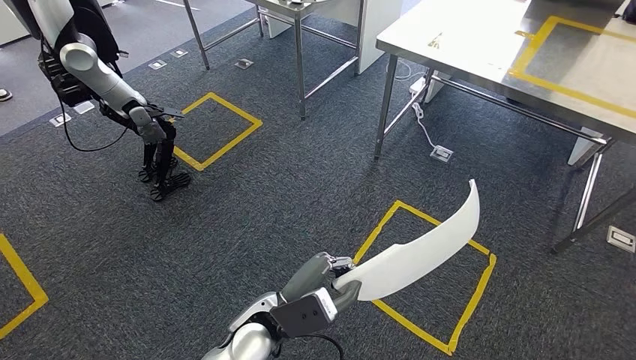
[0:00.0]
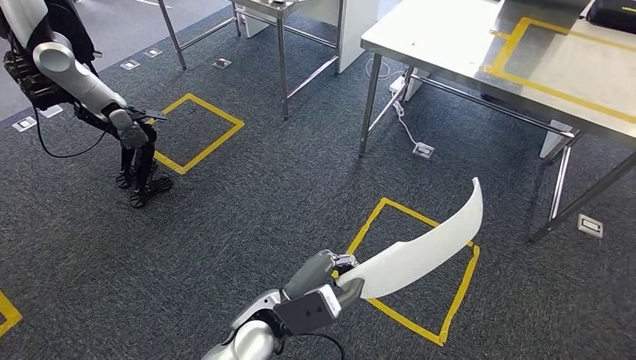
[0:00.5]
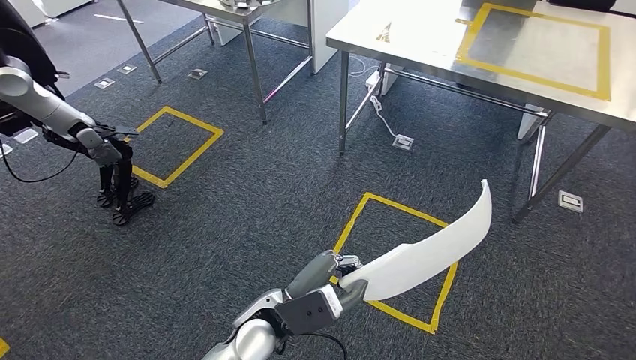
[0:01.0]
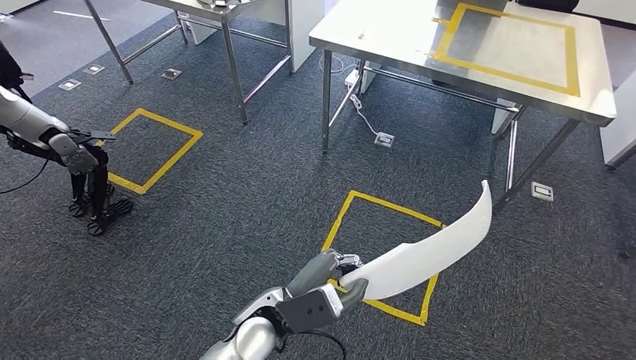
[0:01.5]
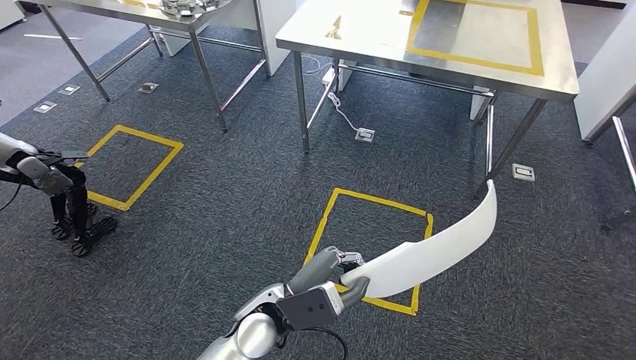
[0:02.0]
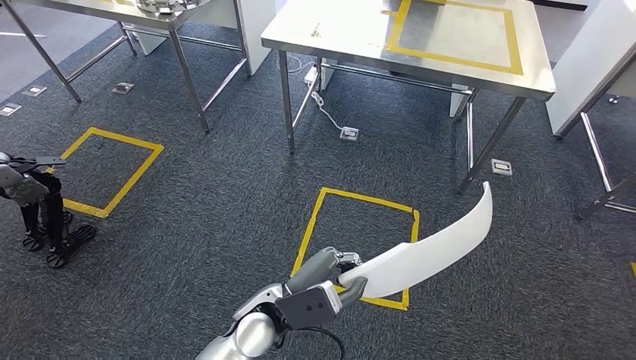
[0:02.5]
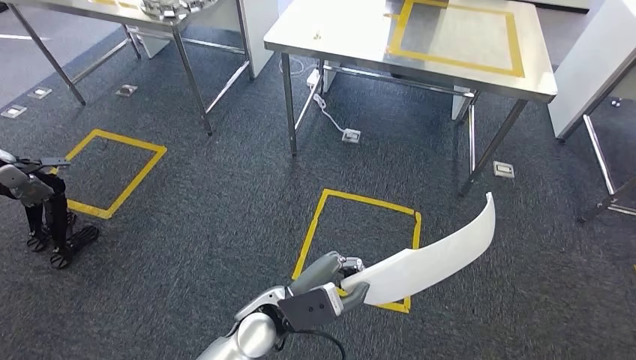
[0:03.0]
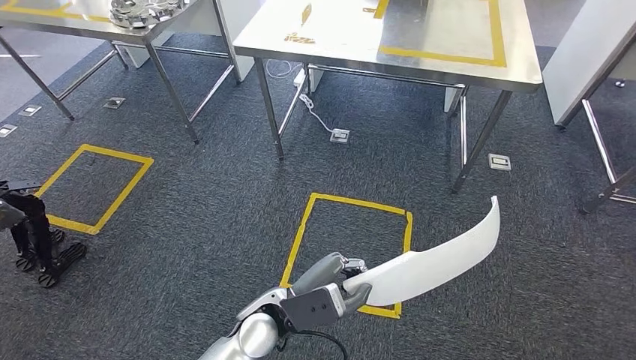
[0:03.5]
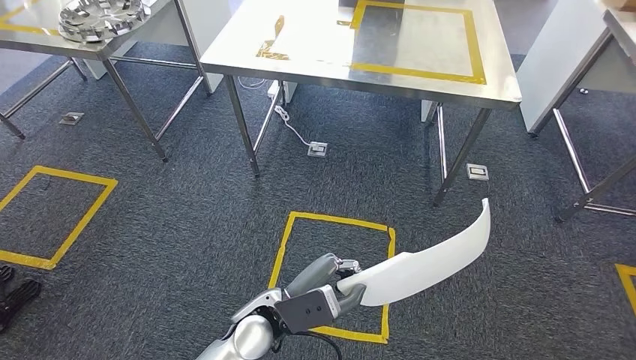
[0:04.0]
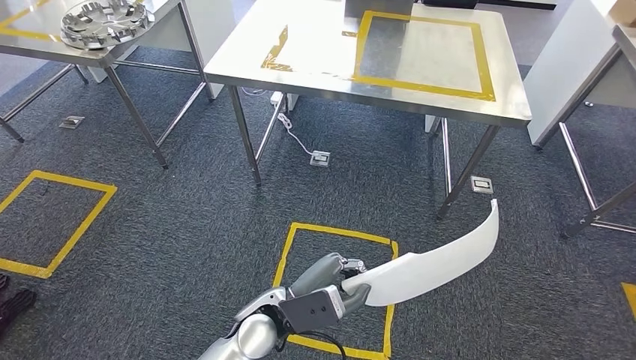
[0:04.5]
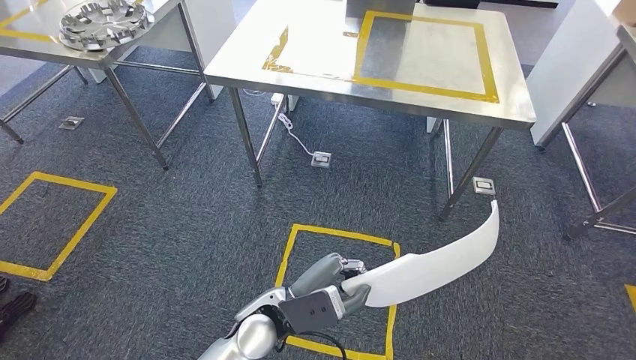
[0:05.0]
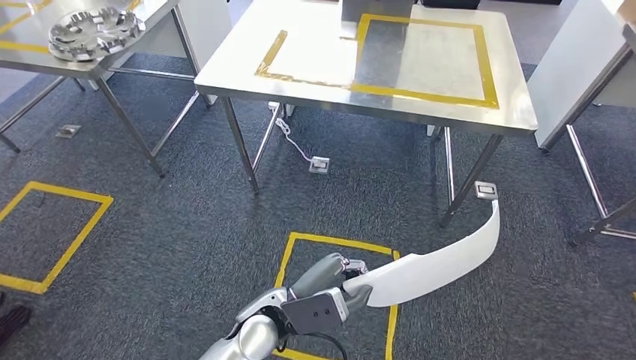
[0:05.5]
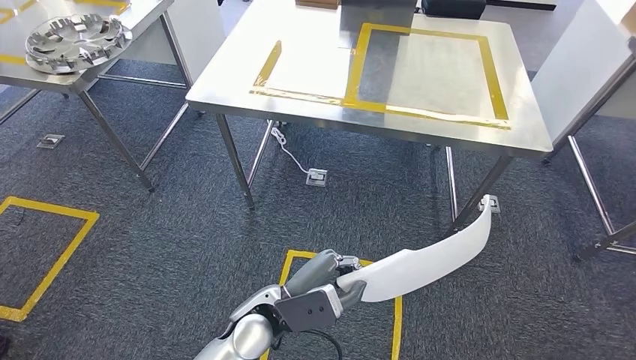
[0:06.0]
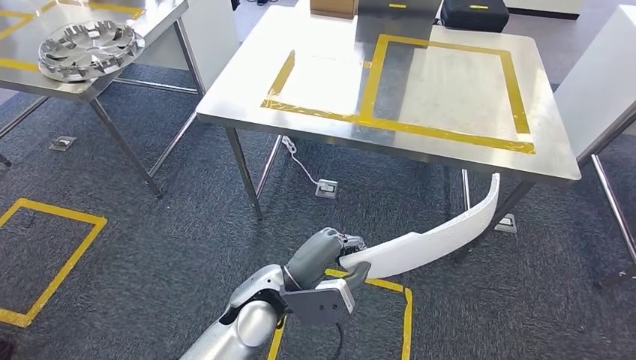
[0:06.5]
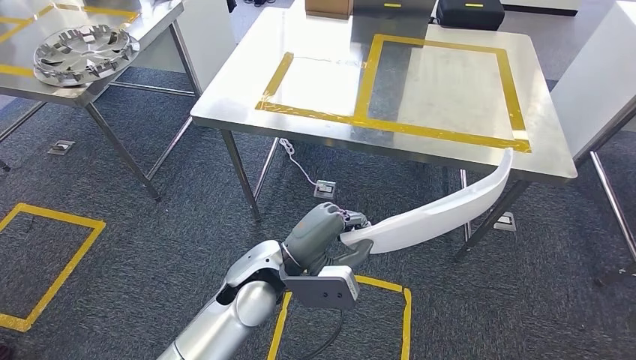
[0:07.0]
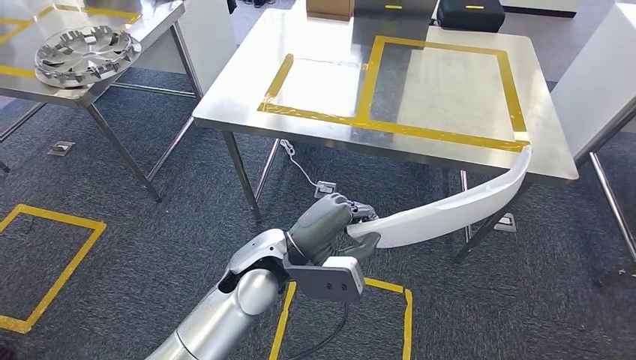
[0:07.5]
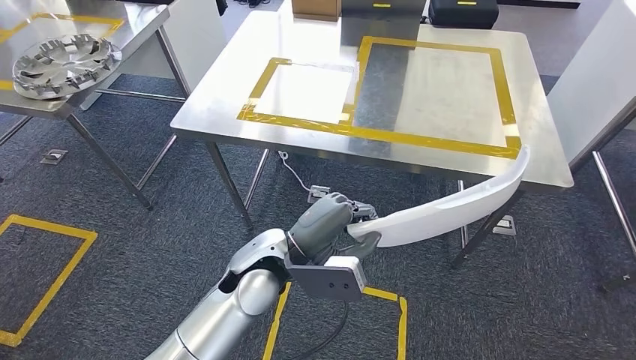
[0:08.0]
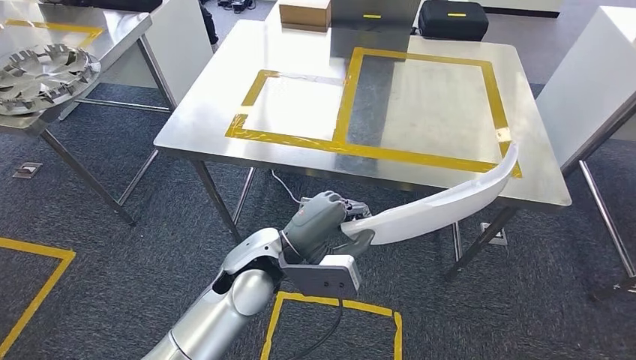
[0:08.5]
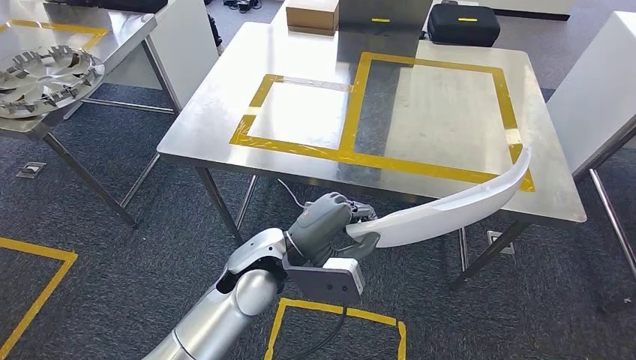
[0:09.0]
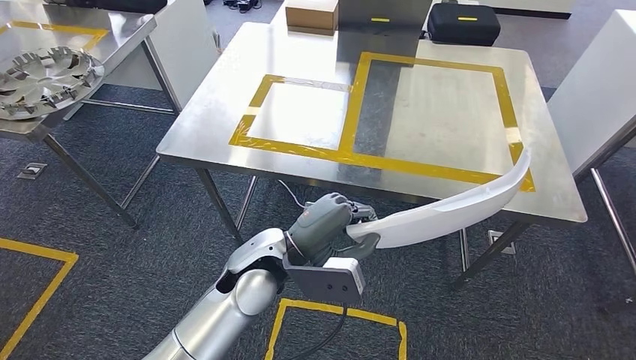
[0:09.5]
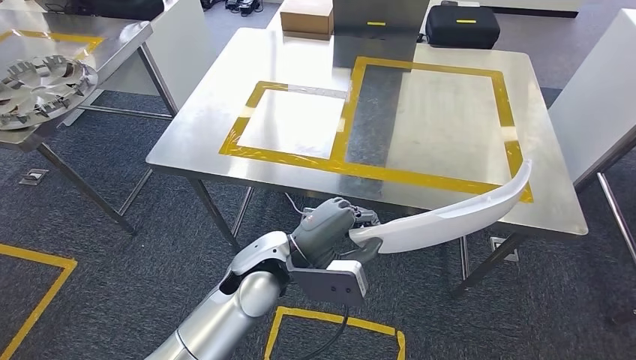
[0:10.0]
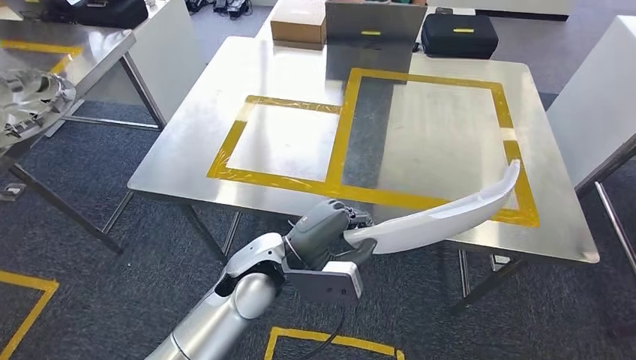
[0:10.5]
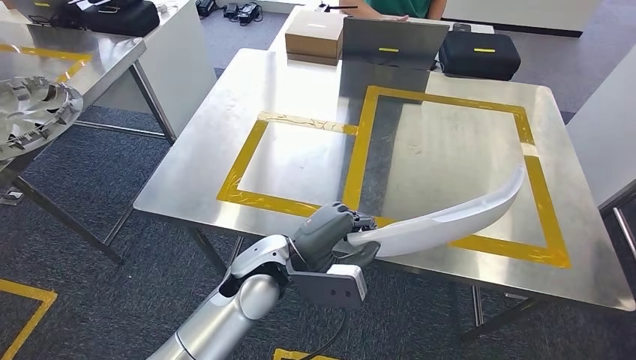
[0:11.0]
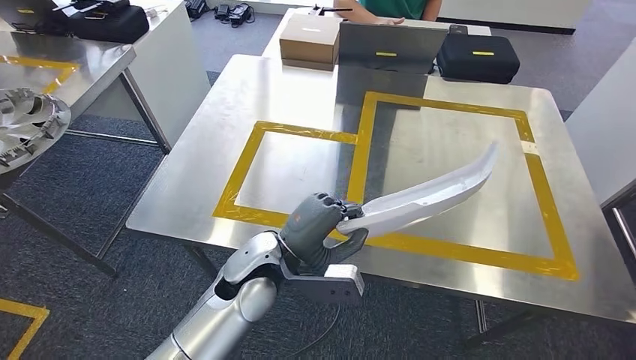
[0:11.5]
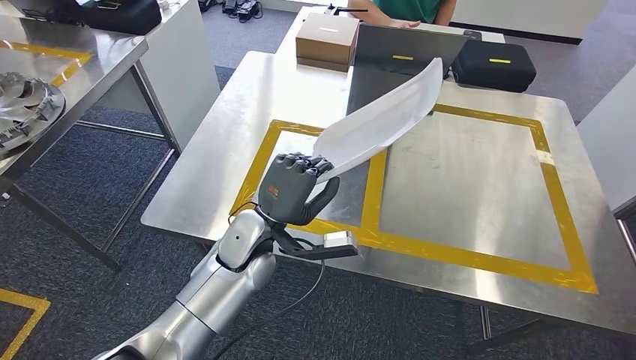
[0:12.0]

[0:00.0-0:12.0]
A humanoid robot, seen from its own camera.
Step, 0:00.0 to 0:11.0: Move the small parts to the workbench.

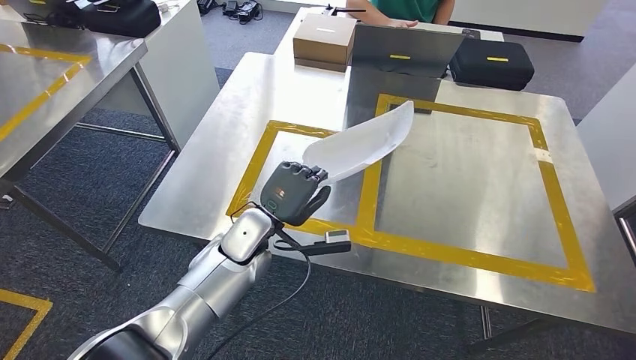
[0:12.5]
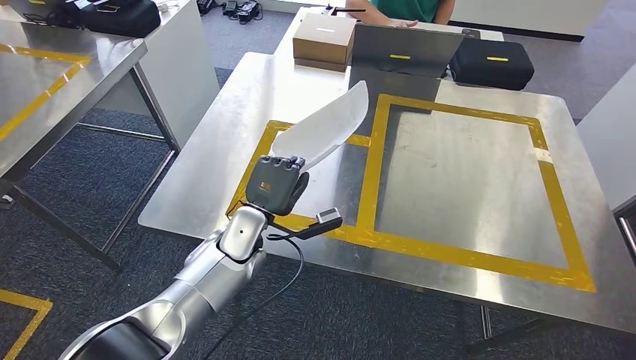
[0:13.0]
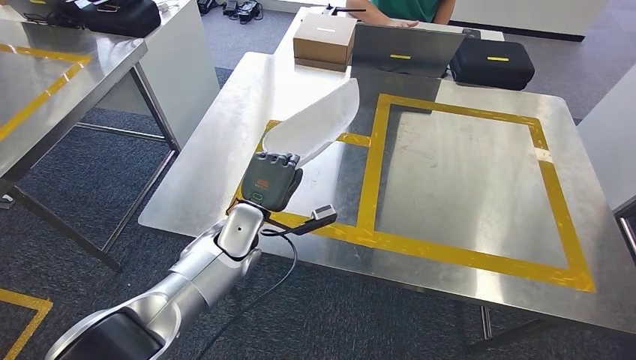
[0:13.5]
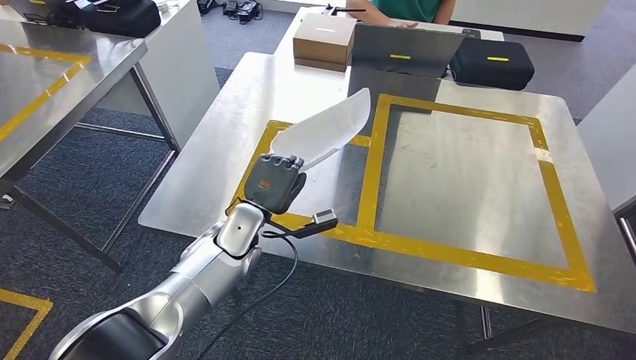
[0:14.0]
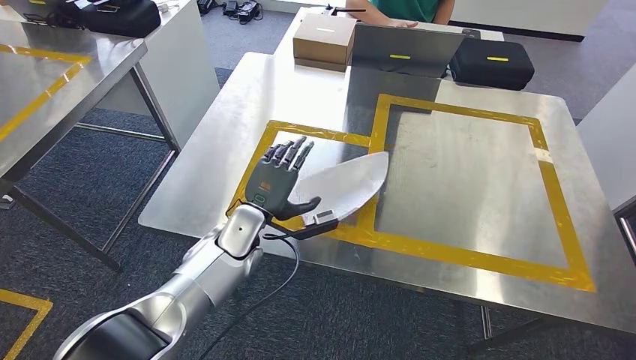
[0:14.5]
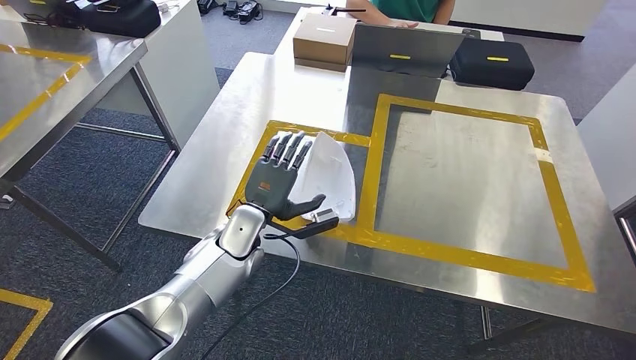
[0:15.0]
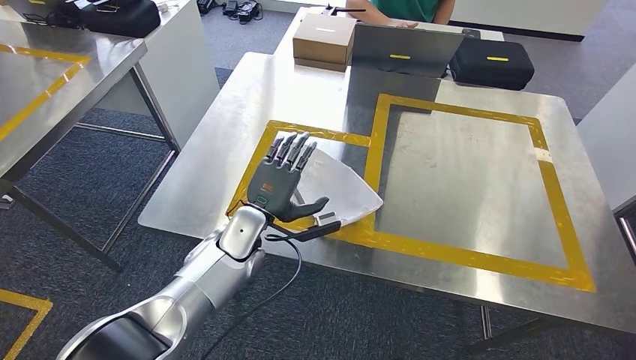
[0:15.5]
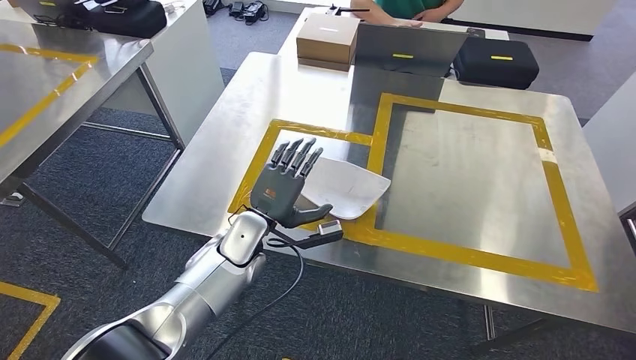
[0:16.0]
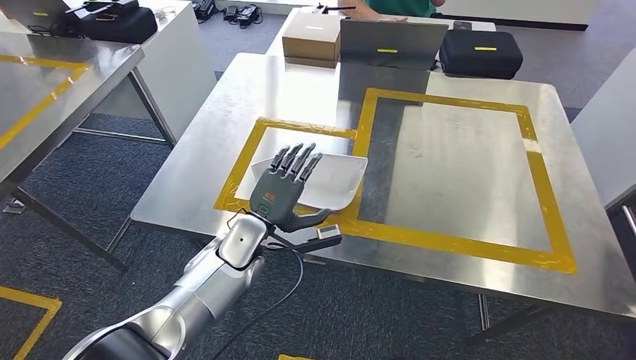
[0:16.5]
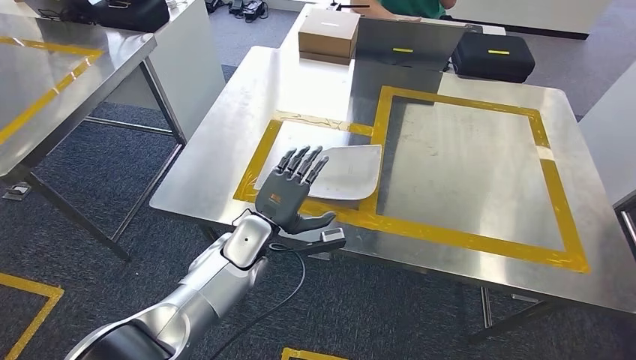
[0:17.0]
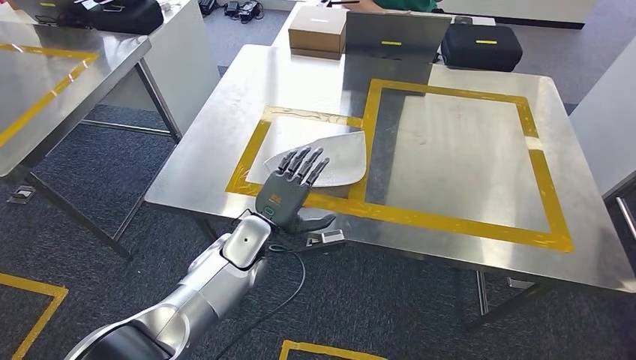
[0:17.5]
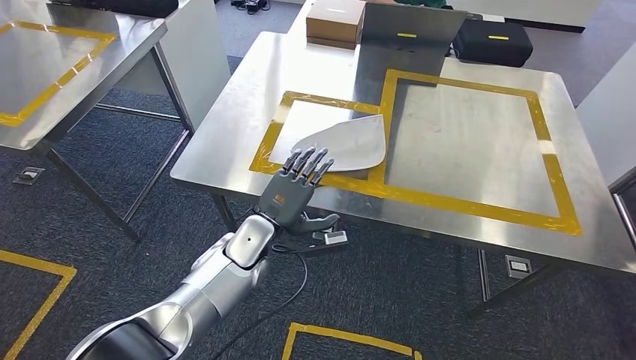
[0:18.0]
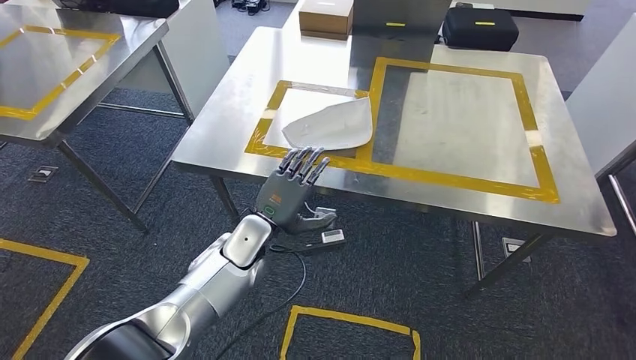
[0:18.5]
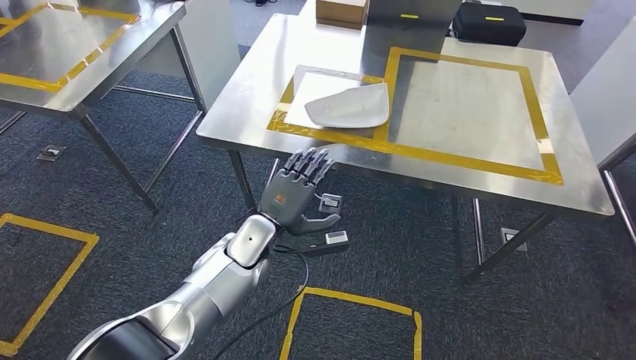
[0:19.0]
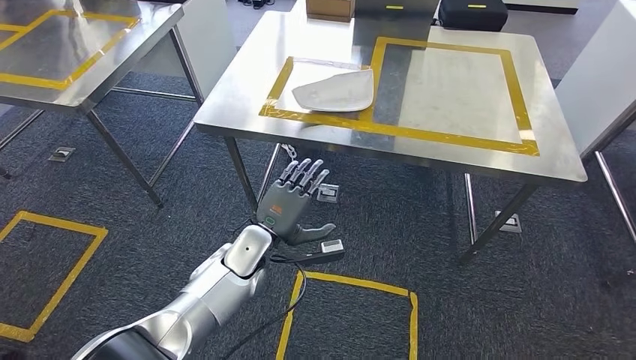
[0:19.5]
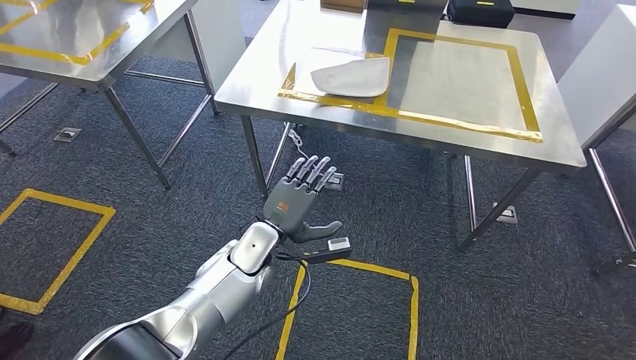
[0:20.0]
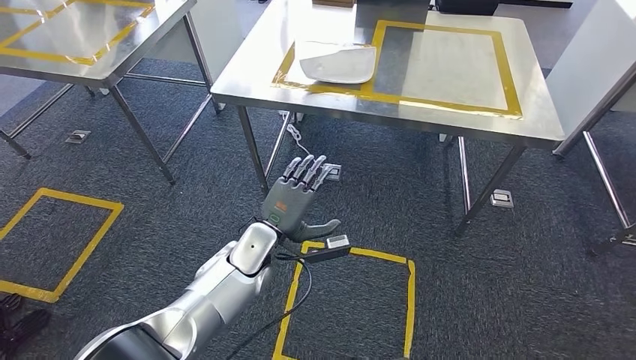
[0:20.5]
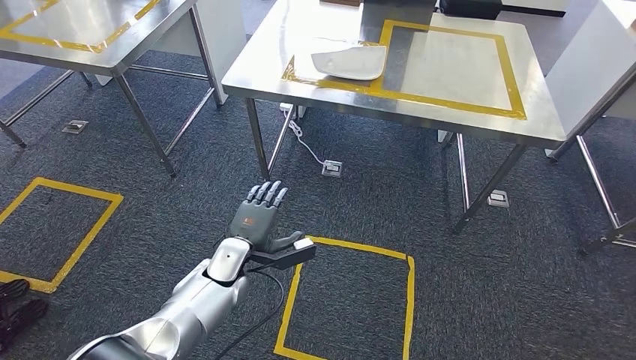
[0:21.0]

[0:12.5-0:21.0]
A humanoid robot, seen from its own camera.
Step, 0:12.5 to 0:15.5: Insert the small parts into the corresponding slots on the workbench.
